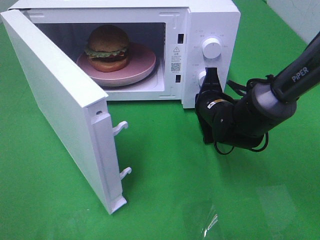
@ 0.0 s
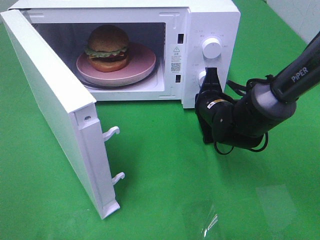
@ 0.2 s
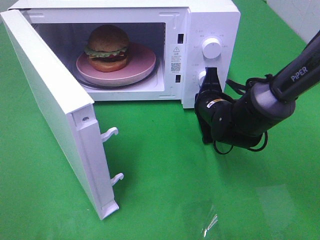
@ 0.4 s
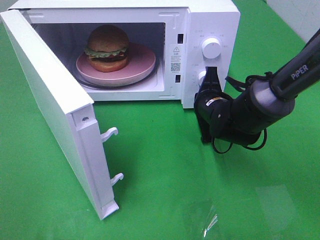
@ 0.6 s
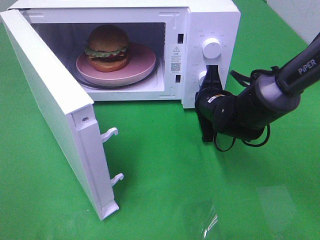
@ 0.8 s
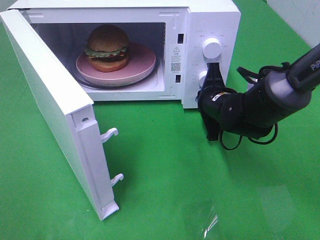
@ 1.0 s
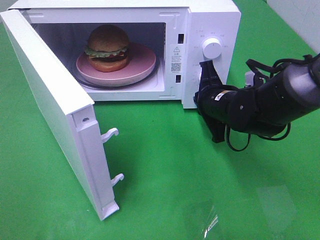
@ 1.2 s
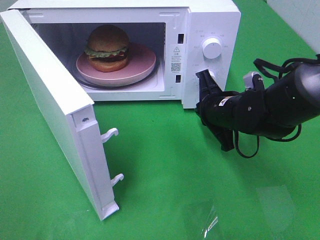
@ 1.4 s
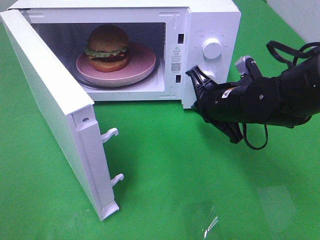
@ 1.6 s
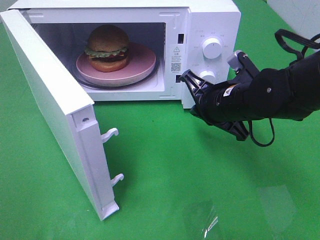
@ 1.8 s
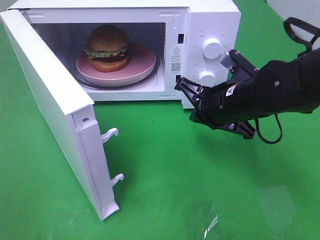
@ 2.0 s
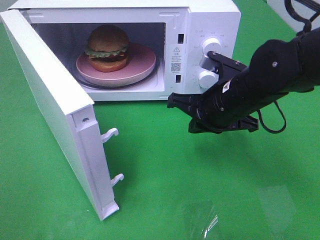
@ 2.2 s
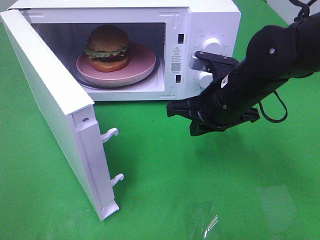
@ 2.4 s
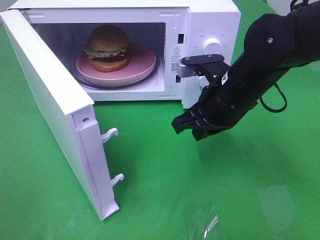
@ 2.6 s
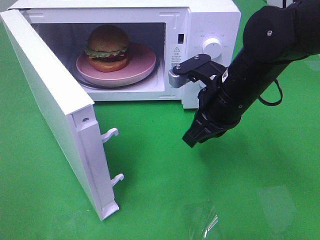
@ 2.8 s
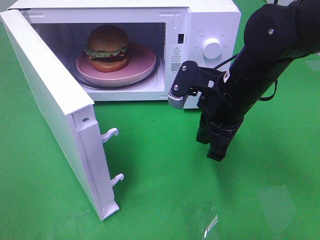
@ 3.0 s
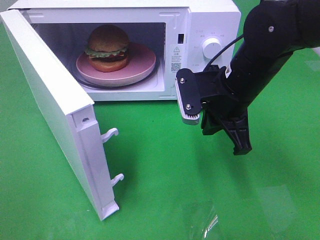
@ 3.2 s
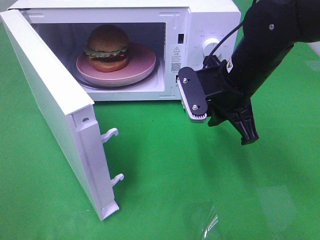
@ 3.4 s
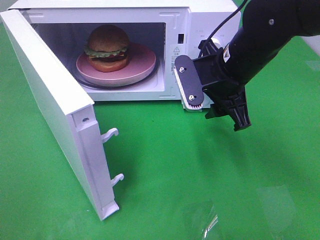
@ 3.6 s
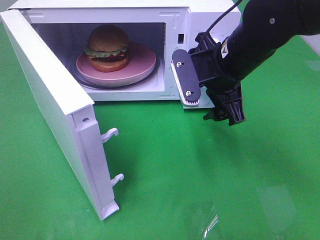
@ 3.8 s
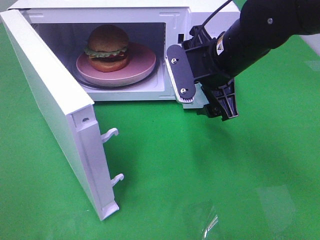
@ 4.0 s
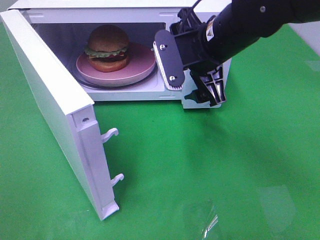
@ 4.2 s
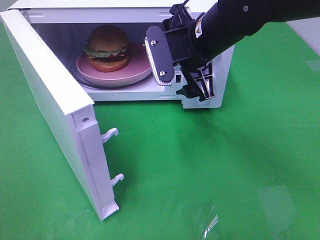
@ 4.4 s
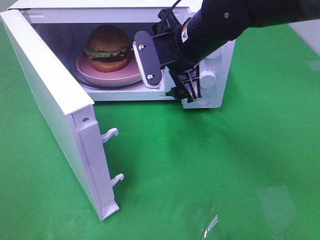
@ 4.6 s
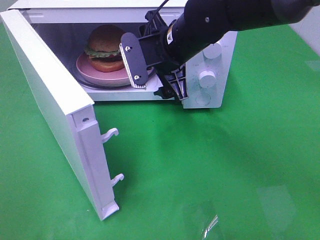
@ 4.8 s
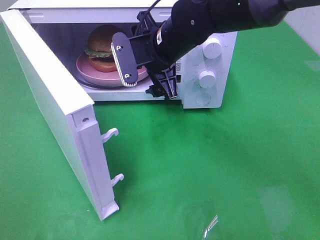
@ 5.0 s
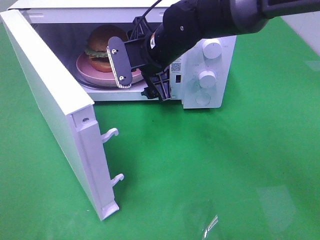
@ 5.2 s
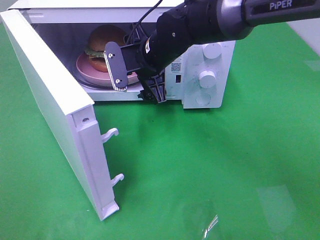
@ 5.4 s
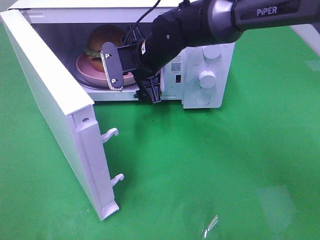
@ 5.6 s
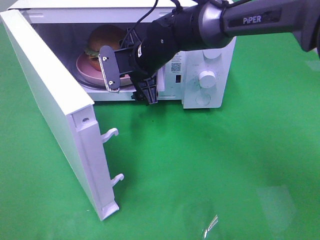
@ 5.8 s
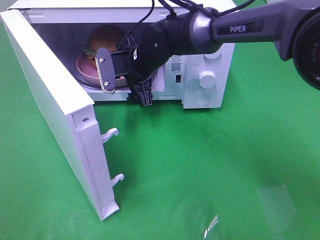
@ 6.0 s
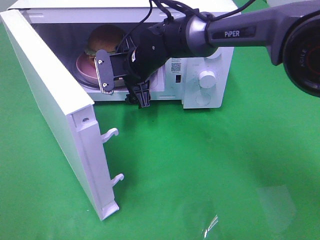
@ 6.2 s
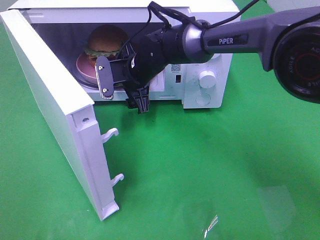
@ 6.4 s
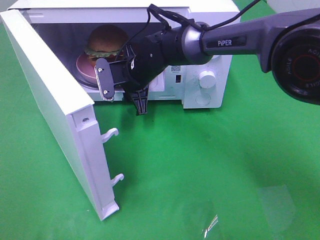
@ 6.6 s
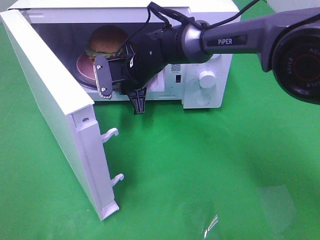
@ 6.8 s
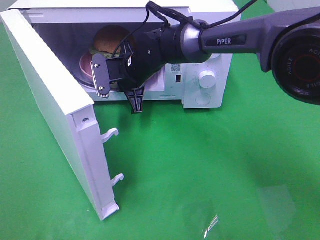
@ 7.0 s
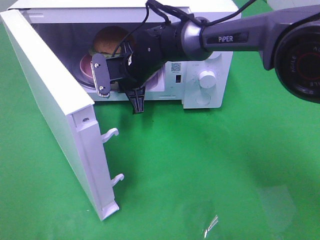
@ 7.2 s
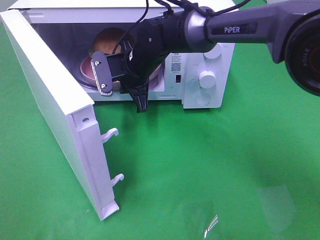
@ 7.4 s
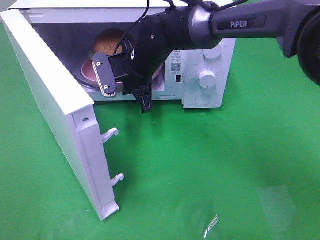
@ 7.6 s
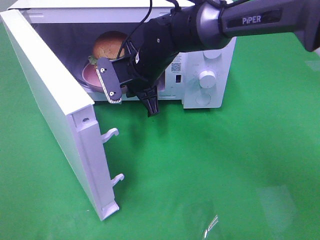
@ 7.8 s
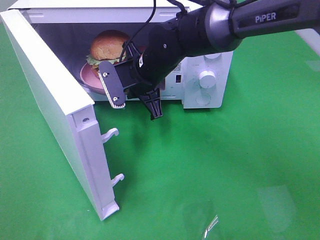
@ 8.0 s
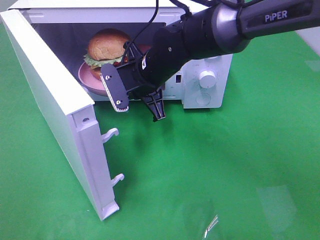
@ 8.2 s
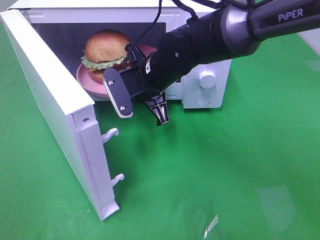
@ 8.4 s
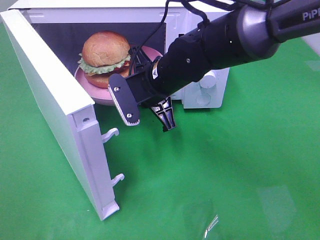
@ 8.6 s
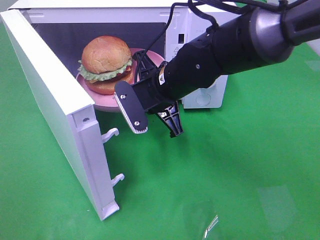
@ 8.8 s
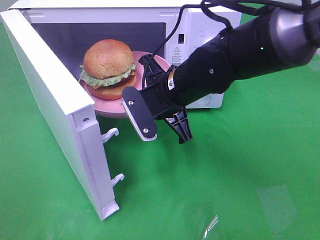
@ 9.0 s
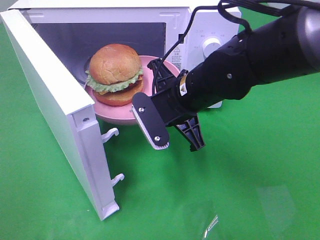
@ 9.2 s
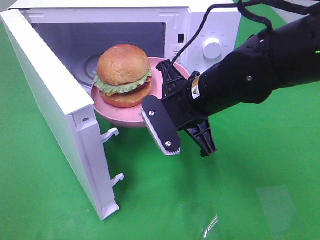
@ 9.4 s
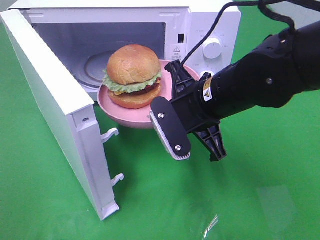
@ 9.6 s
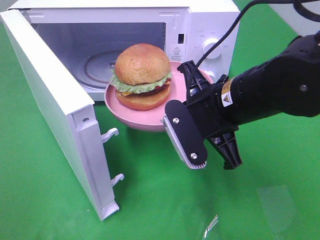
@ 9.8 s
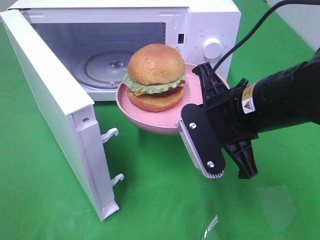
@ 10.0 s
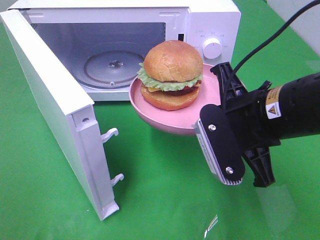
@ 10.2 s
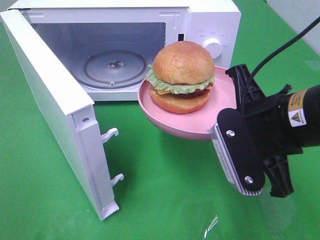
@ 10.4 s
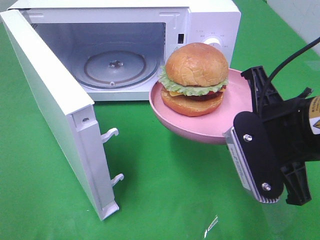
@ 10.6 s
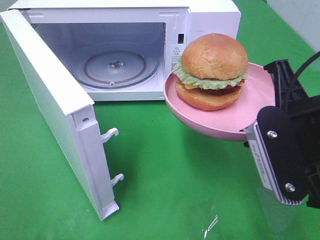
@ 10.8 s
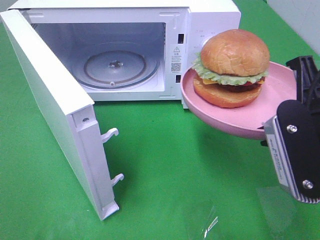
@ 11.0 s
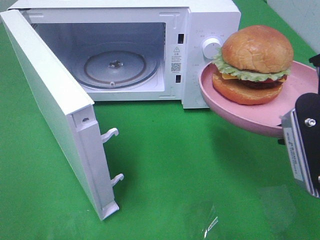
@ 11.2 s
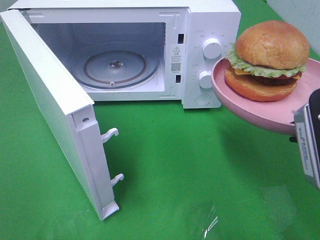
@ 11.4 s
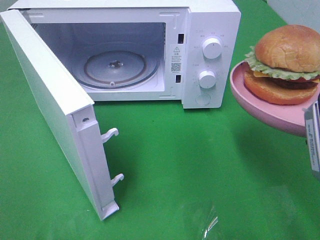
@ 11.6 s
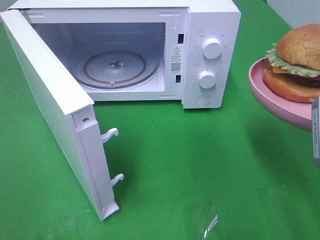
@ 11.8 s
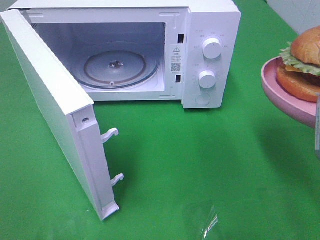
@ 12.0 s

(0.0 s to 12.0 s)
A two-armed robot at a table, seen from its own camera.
Task of the whole recording: Heat the burger.
Step, 1.4 s - 6.8 s: Right hand: grab the plate with the hamburger.
0.0 s - 1.6 s: The right gripper is displaced upward by roughly 5 cm.
1.6 s - 3.0 s: The right gripper changes place by some 5 cm.
3.0 s - 4.4 s: The right gripper moves forward, approximately 5 cm, and opens up.
4.4 s - 6.0 s: The right gripper travels to the left, downward and forward by roughly 15 cm.
6.0 s - 7.6 s: The right gripper closes.
7.6 s - 9.0 s: The right gripper moves backward and to the right, some 10 cm.
9.0 s - 10.4 s: The right gripper shifts some 15 cm backward, to the right and upward.
10.4 s - 12.0 s: The right gripper travels to the right by approximately 10 cm.

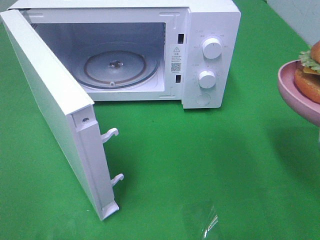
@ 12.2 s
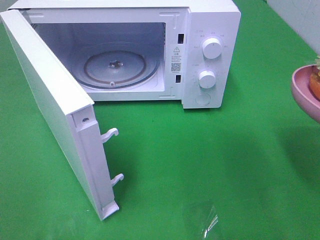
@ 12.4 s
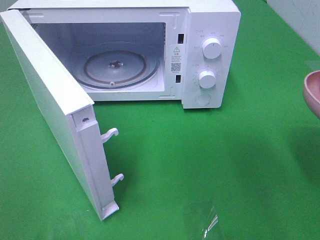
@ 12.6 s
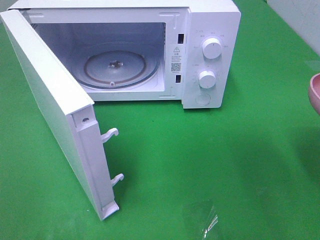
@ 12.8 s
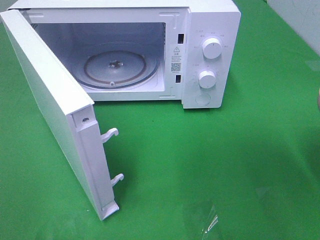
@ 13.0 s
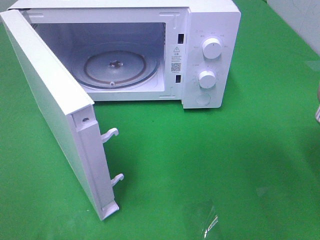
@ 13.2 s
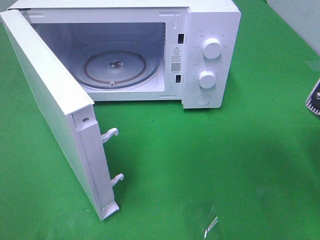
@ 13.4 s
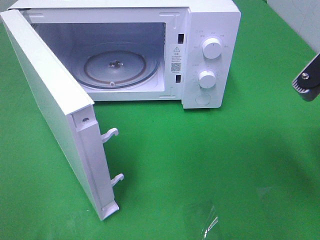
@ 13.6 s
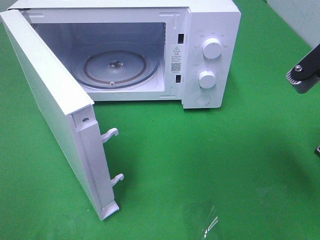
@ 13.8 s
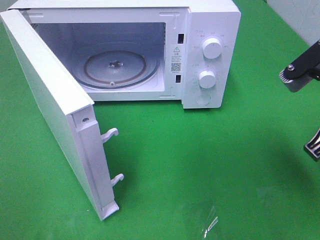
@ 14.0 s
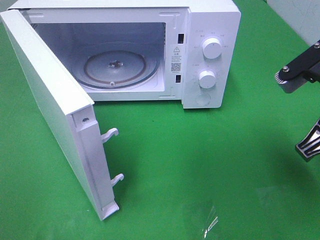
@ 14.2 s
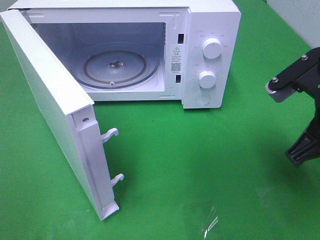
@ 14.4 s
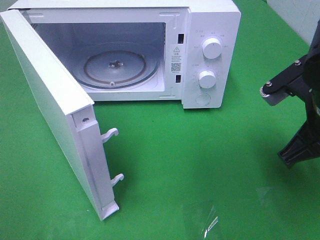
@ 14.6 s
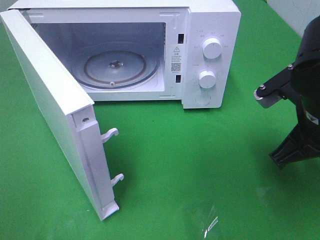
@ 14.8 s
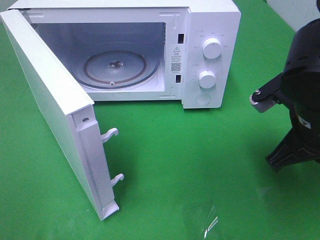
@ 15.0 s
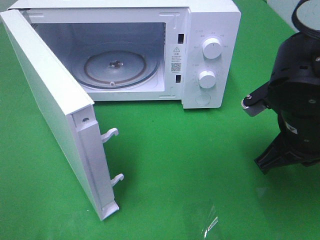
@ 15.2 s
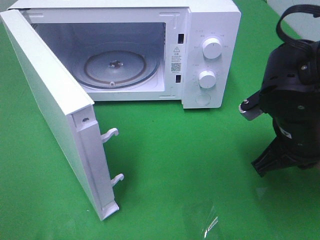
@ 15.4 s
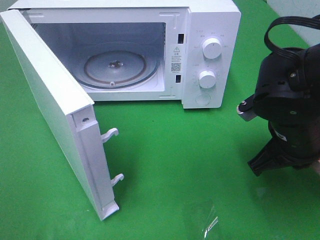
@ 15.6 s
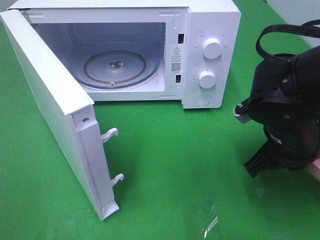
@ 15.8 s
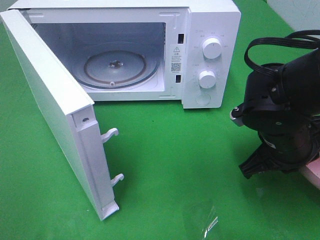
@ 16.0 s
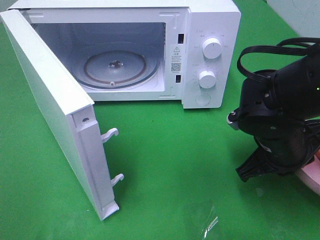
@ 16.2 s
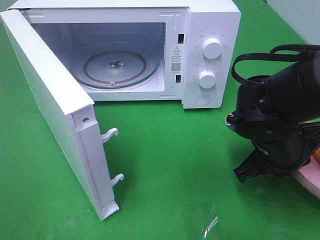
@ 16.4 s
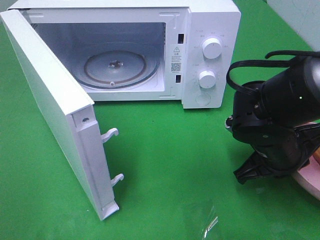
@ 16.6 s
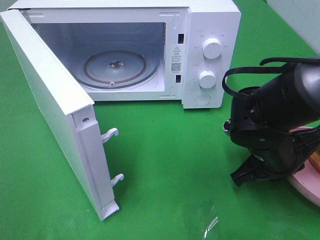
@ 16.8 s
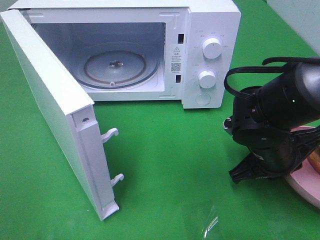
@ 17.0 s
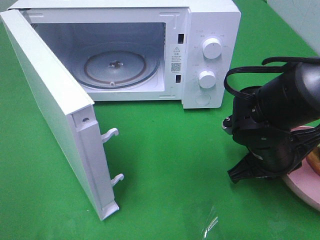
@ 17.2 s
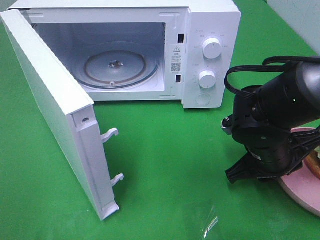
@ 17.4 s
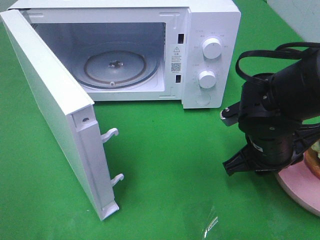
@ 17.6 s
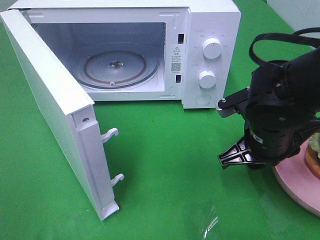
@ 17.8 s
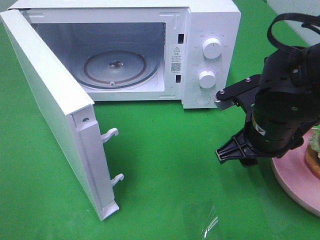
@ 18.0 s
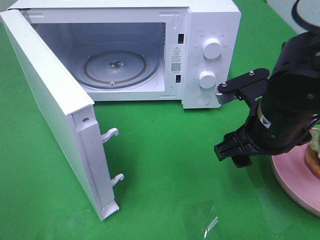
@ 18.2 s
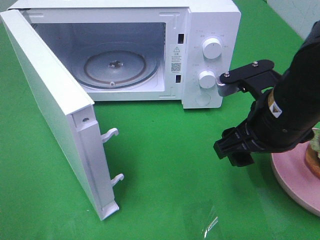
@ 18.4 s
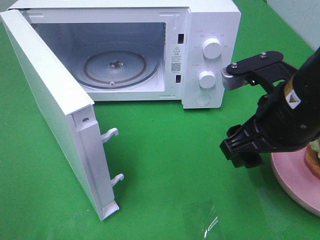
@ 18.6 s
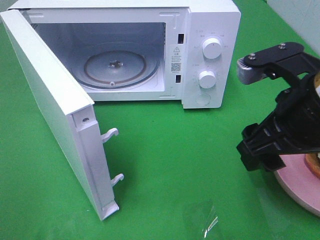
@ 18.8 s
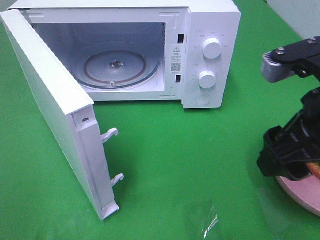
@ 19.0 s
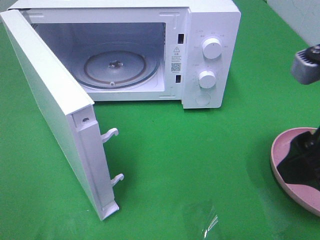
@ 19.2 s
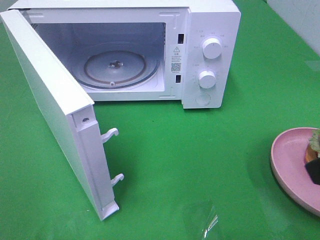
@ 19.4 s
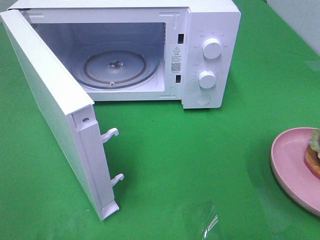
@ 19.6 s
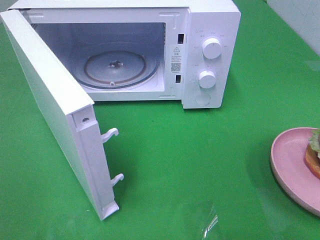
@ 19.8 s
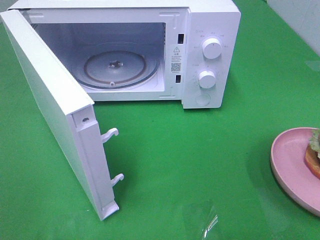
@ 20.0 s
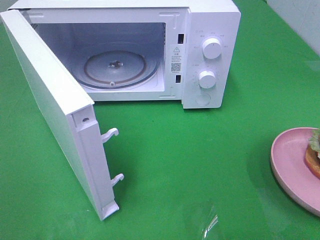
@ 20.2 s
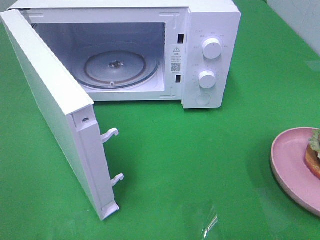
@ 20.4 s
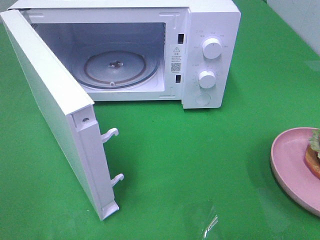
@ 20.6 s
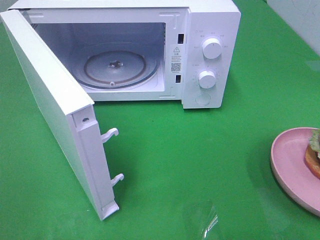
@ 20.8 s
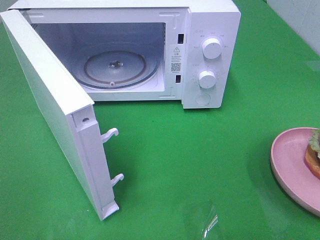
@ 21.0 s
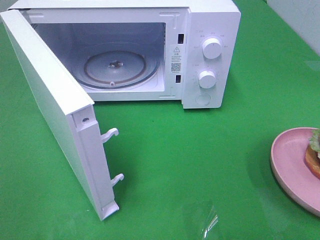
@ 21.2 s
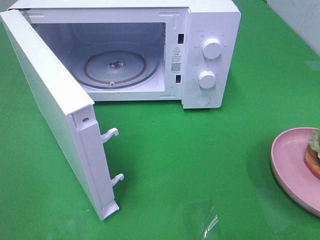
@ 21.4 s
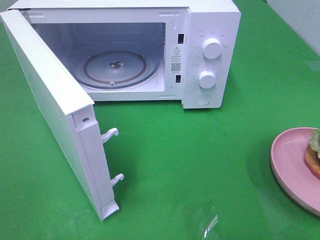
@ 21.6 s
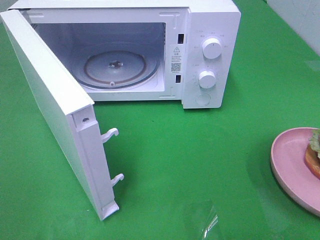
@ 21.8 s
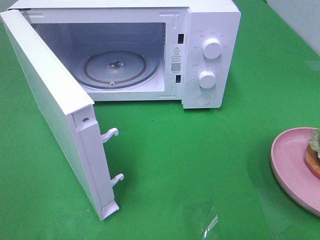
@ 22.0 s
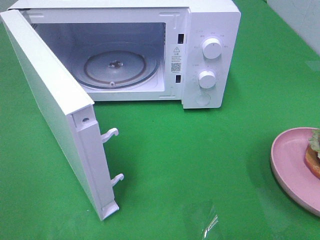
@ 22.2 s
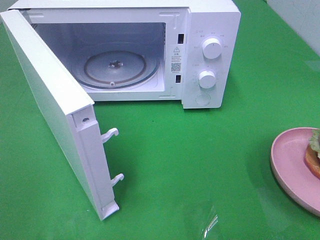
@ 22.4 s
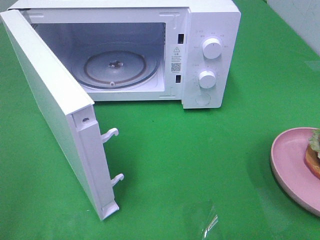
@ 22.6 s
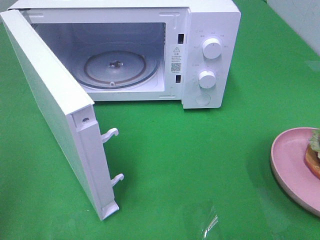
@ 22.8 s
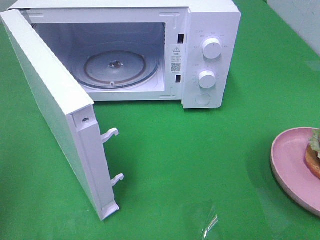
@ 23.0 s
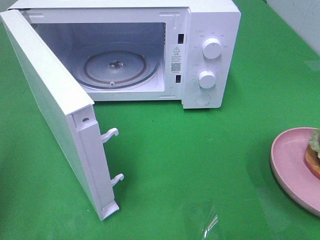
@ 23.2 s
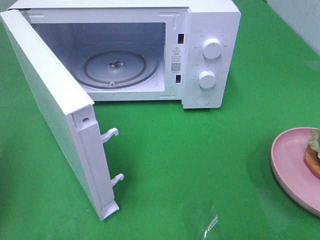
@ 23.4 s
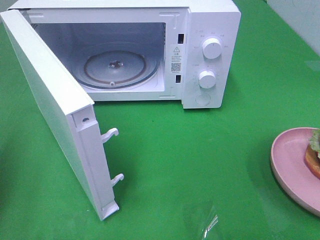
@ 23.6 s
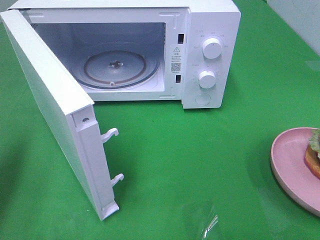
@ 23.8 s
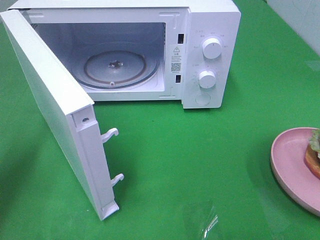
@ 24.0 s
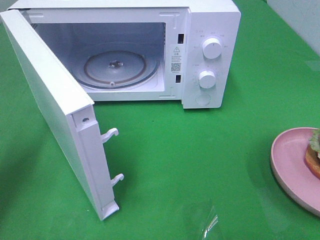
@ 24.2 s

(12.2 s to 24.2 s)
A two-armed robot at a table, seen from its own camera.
Task of the whole recording: Heat the burger.
Step, 12.2 s - 18.0 s: Right hand: place the plate on the table.
12.2 s - 13.8 s: The right gripper ends up roughly 5 cm from where it was.
13.8 s - 15.2 s: The right gripper heads downward, covering roughly 10 cm.
15.2 s - 16.6 s: The right gripper goes roughly 5 cm downward.
16.6 s - 18.2 s: The right gripper shifts some 5 cm upward, and opens up.
18.2 s - 19.8 s: The right gripper moves backward, upward and to the right, some 30 cm.
22.6 s - 24.2 s: The left gripper travels forward and downward by approximately 20 cm, and closes its fingers.
